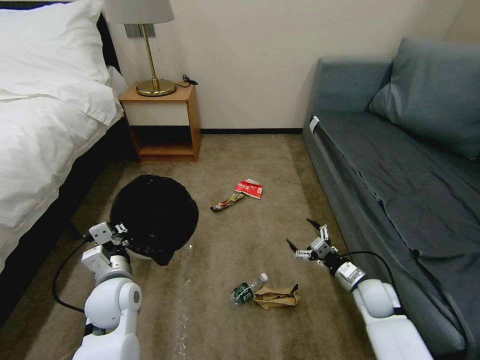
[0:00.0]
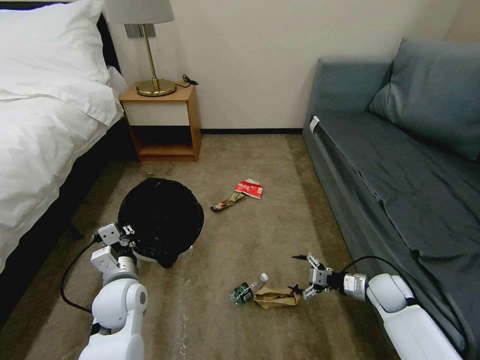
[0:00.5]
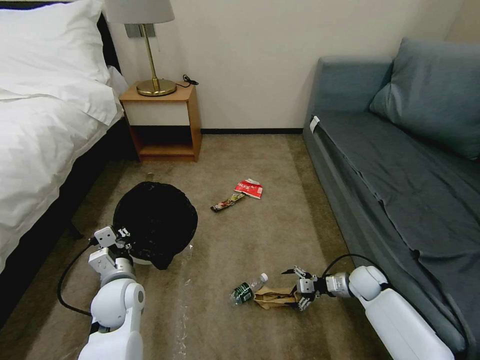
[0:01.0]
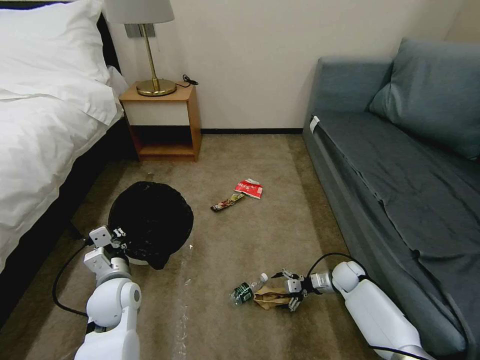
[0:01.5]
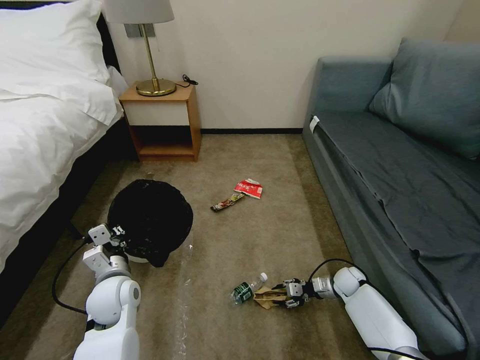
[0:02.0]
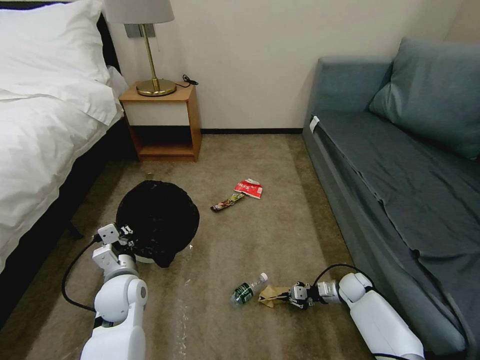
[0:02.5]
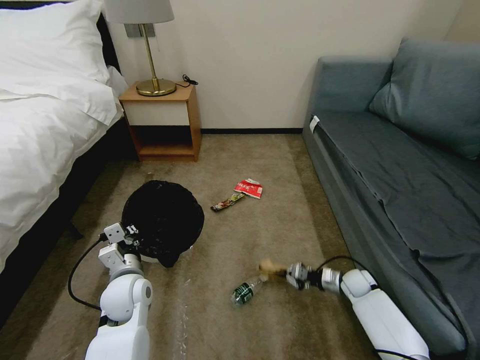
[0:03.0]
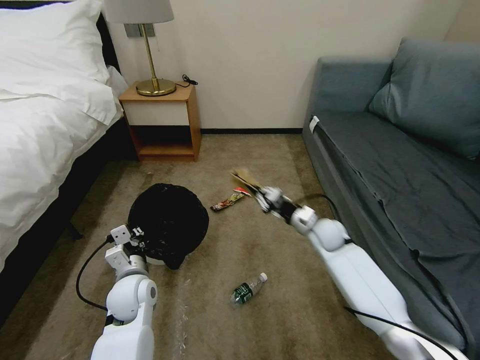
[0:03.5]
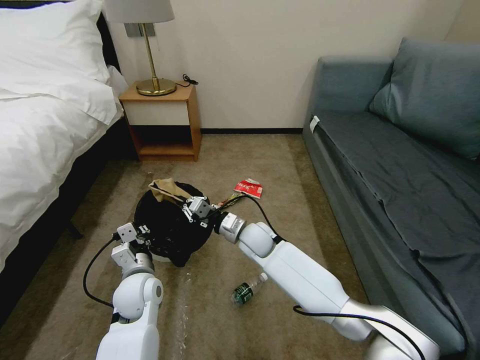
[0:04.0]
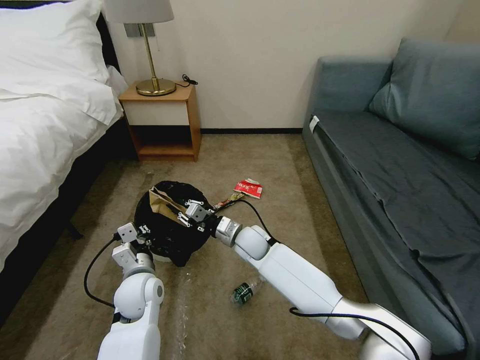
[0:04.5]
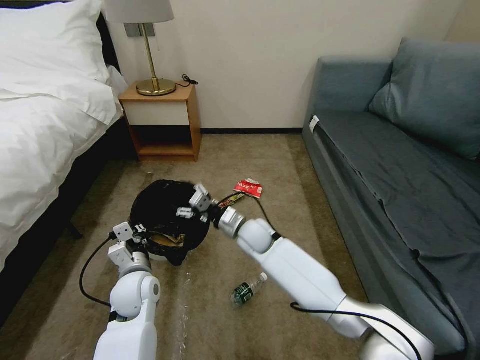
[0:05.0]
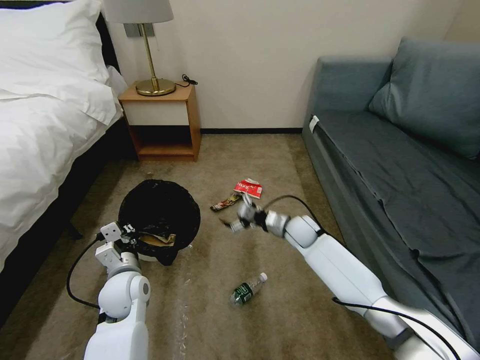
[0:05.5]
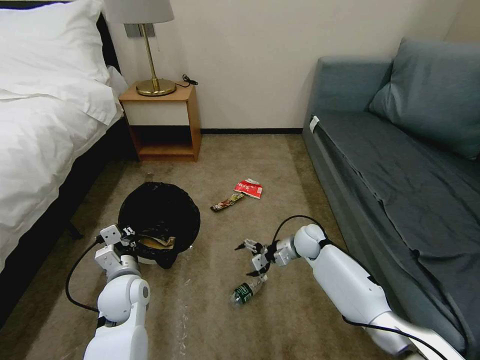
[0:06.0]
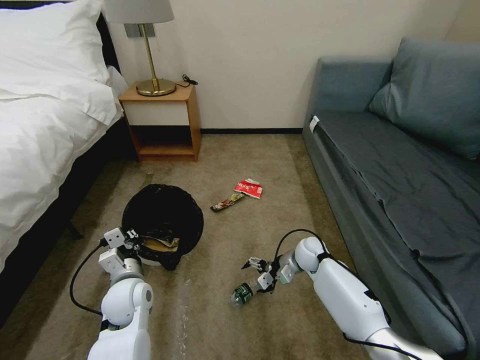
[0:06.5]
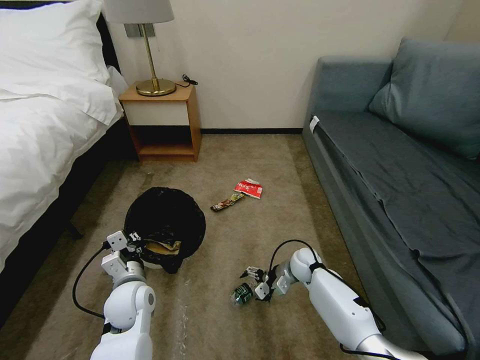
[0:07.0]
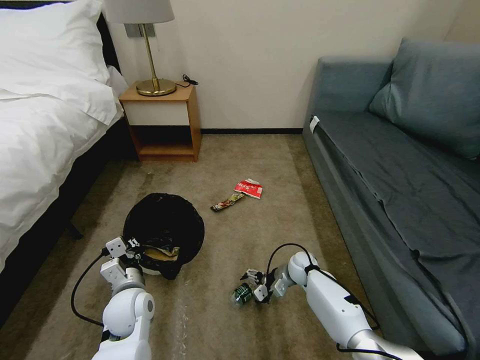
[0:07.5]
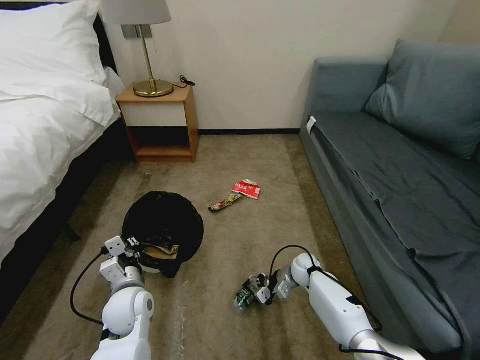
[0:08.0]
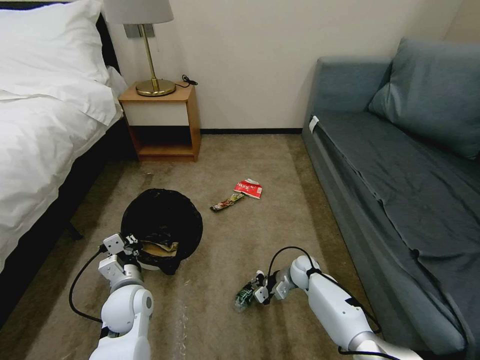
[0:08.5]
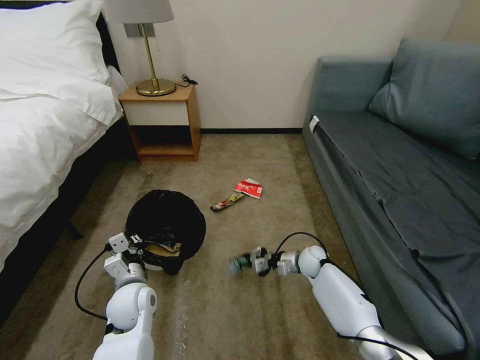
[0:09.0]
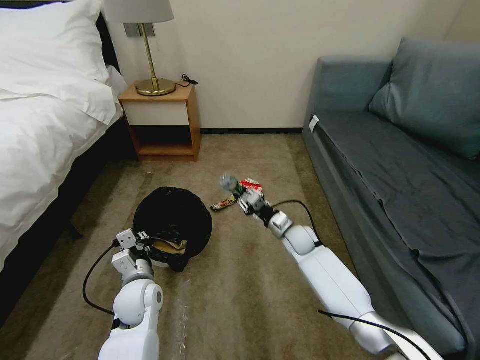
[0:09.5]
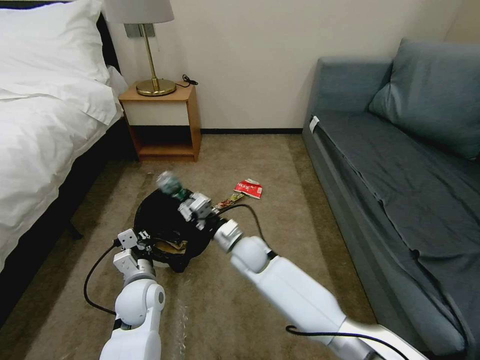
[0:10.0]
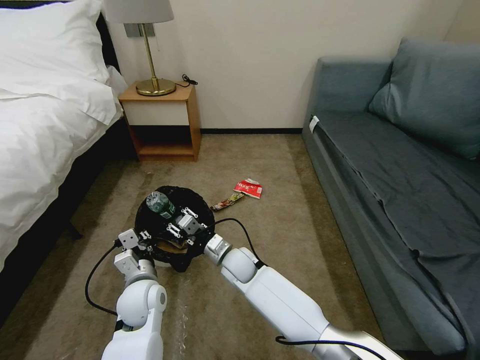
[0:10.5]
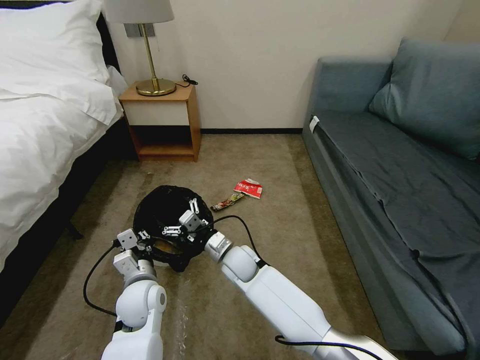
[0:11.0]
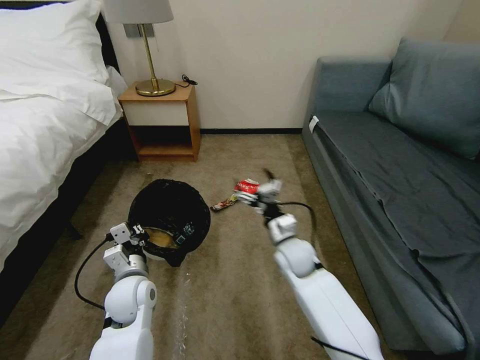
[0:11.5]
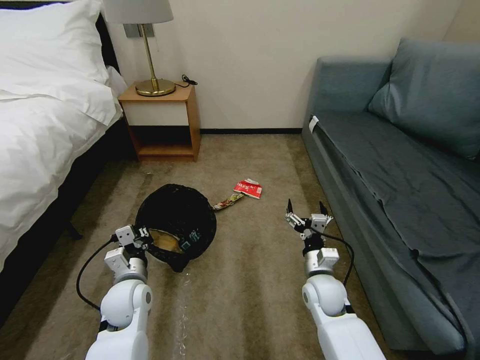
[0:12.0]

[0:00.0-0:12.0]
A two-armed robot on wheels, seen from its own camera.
Task of the whole recording: Pick up the trash bin, then pick up the garbage on the floor and place it into the trash bin.
0:00.0 to 0:02.0: The right gripper goes about 10 cm downward and forward, and closes.
0:02.0 to 0:04.0: The right gripper heads to the left and upward, covering roughly 35 cm, and closes its fingers.
0:04.0 to 0:06.0: The right gripper goes approximately 15 cm to the right, and opens up.
0:06.0 to 0:08.0: The right gripper is displaced downward by roughly 10 cm.
0:08.0 to 0:10.0: The right gripper moves to the left and upward, about 25 cm, and closes up.
0:10.0 to 0:12.0: The right gripper is displaced to the right and backward by approximately 20 cm, and opens up.

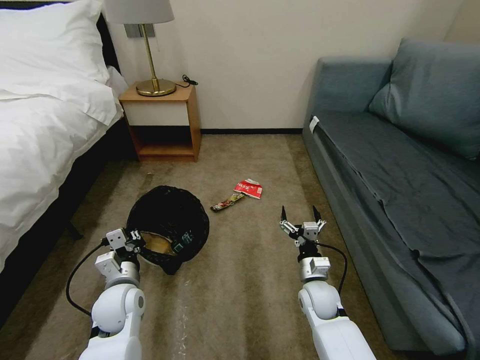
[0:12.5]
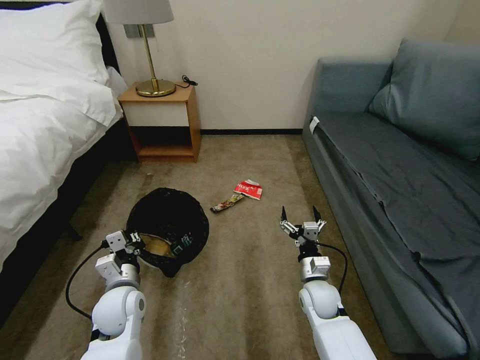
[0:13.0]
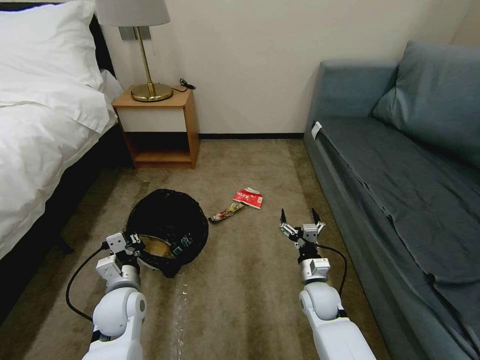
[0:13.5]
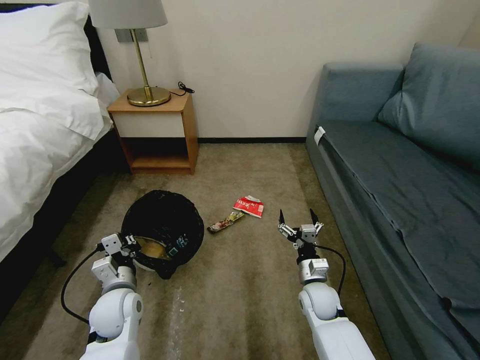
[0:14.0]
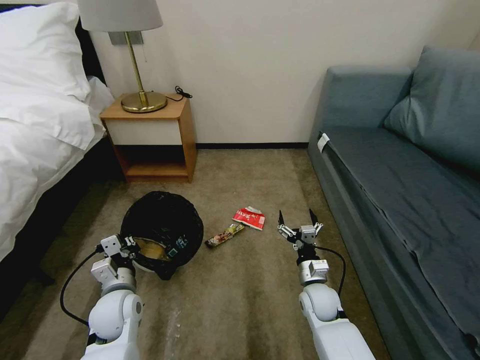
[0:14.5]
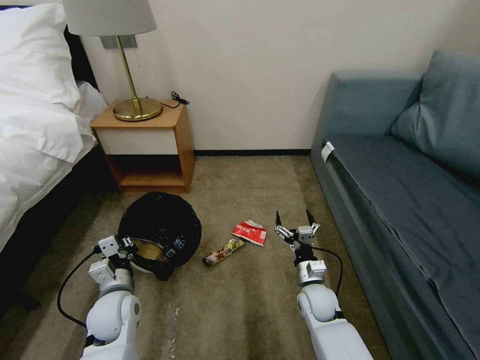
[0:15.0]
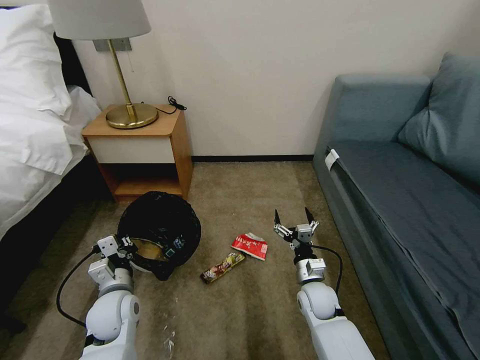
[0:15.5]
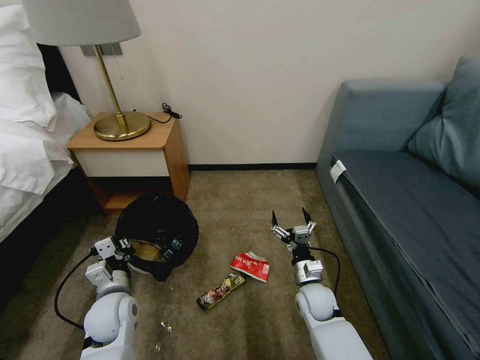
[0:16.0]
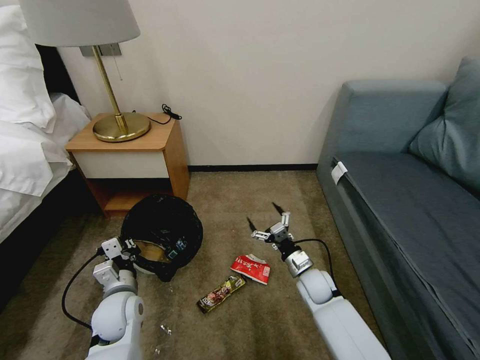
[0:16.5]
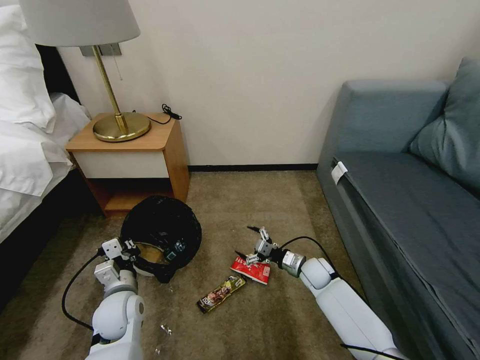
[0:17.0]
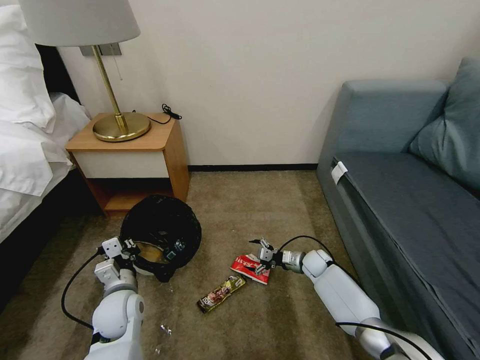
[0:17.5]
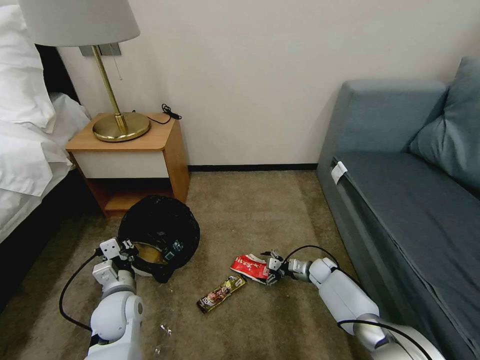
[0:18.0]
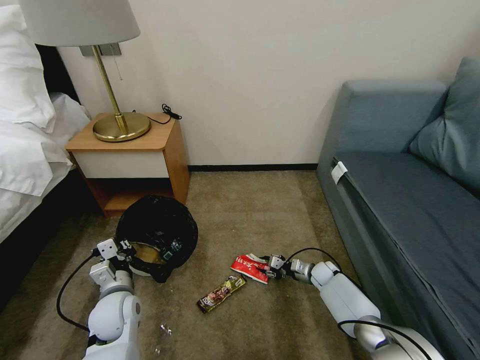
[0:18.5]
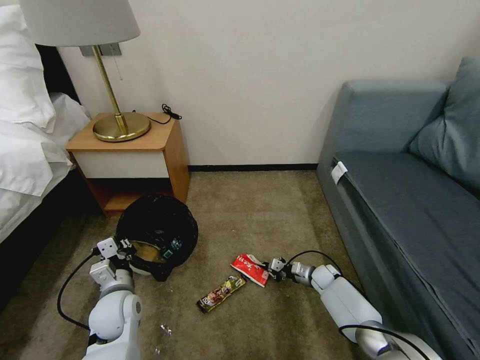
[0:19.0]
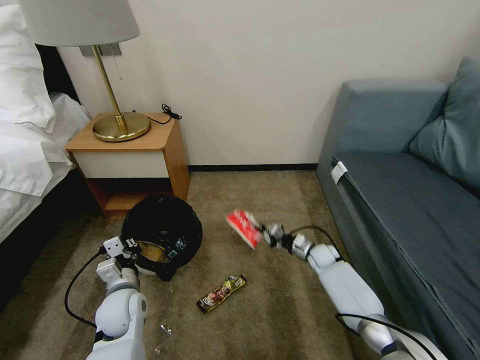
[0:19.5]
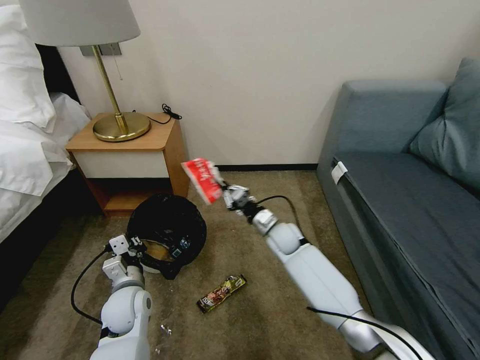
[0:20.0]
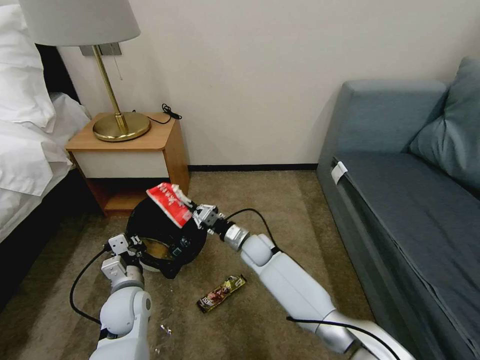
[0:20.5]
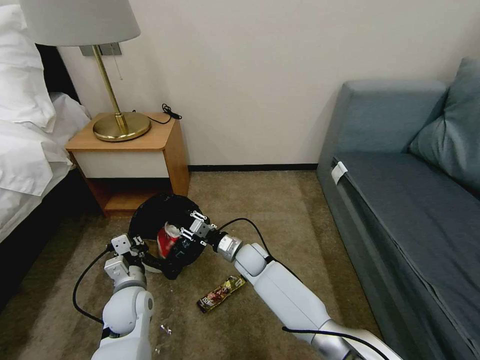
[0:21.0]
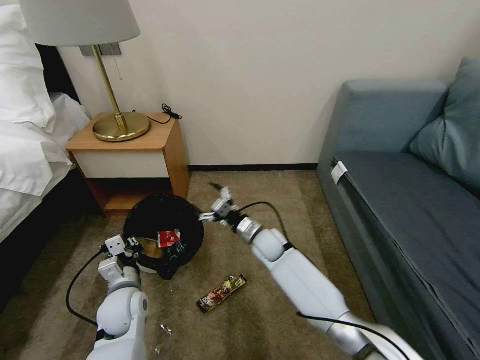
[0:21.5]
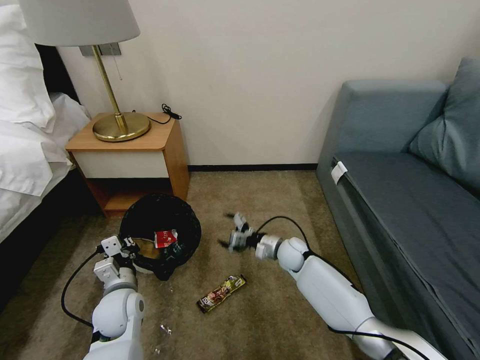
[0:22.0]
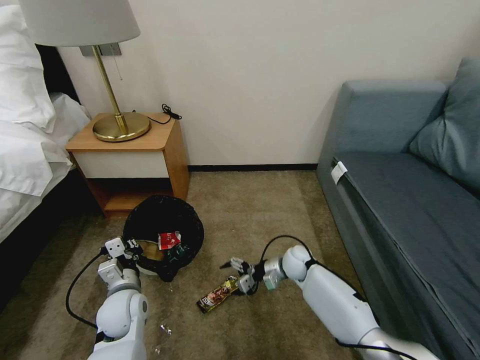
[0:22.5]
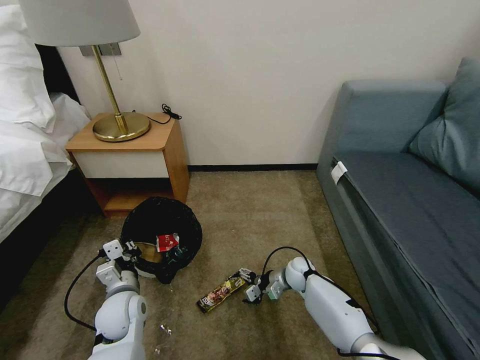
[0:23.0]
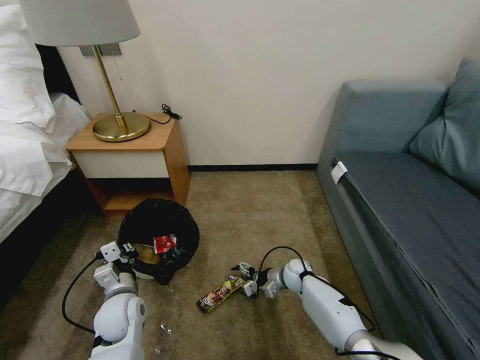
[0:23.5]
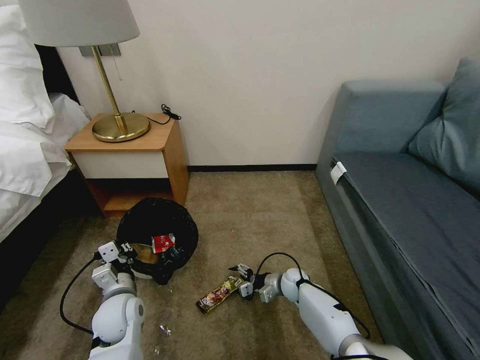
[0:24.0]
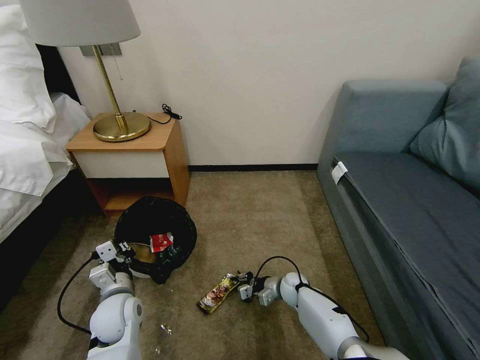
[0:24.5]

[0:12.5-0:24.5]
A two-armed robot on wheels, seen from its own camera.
Task of the whole recording: Pick up the trash bin, then pick up the garbage on the floor and place it into the trash bin.
0:16.5 to 0:18.5: The right gripper shifts approximately 15 cm downward, to the right and forward, and closes its fingers.
0:18.5 to 0:20.5: The right gripper moves to the left and upward, roughly 30 cm, and closes its fingers.
0:20.5 to 0:22.5: The right gripper is displaced to the right by roughly 15 cm, and opens its fingers.
0:22.5 to 0:24.5: The right gripper travels downward by some 10 cm, and closes its fingers.

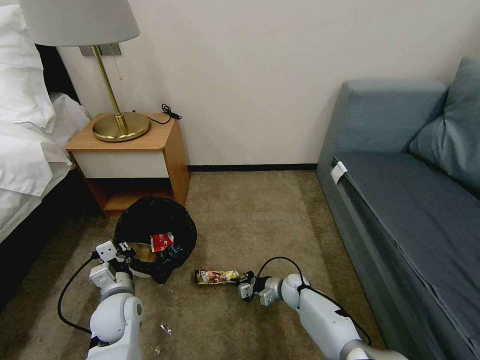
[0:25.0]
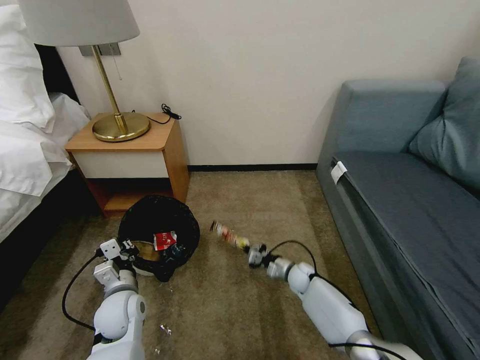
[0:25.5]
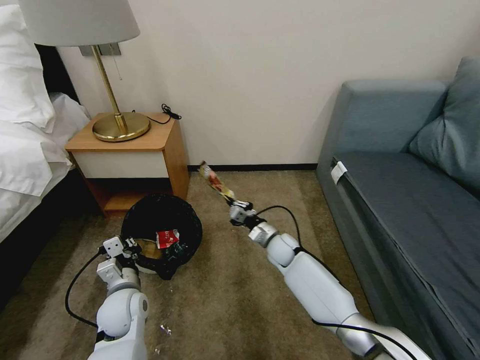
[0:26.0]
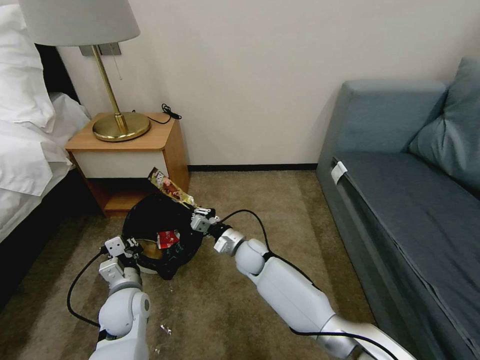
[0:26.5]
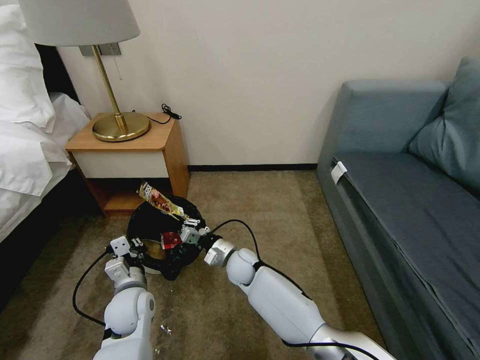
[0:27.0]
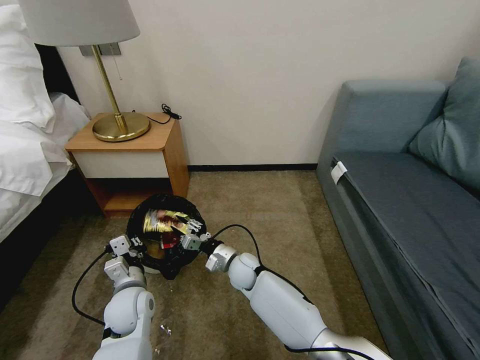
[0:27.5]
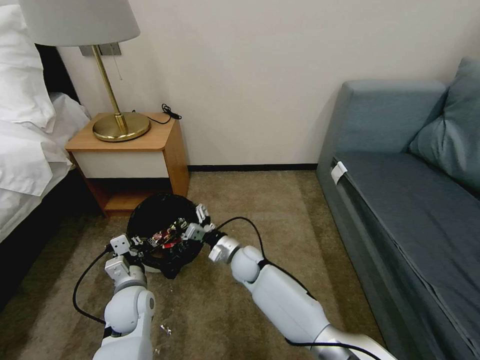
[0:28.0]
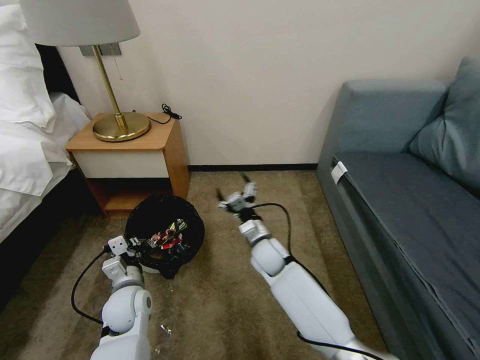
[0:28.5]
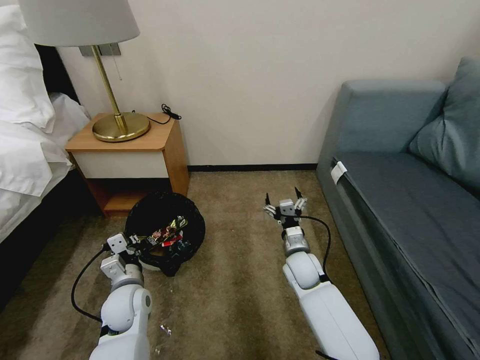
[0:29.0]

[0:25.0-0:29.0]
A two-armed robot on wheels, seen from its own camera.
Task of the whole recording: Pick up the trash bin, then pick up the garbage on the floor and place it into the trash bin.
0:25.0 to 0:27.0: The right gripper is displaced to the left and upward by some 20 cm.
0:27.0 to 0:29.0: The right gripper goes approximately 15 cm to the right, and opens.
